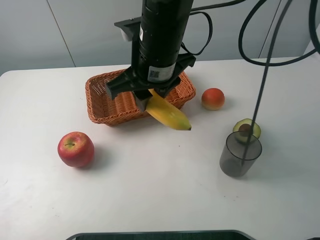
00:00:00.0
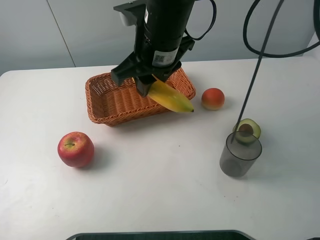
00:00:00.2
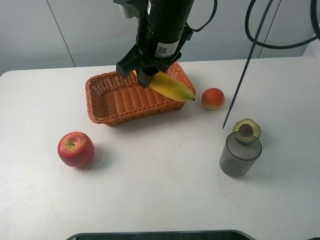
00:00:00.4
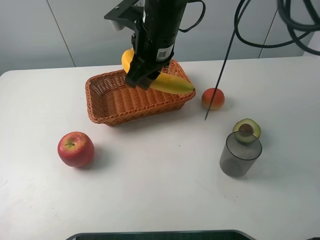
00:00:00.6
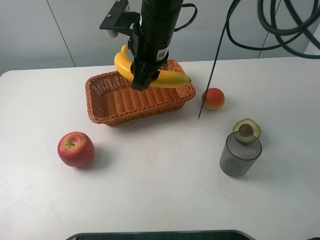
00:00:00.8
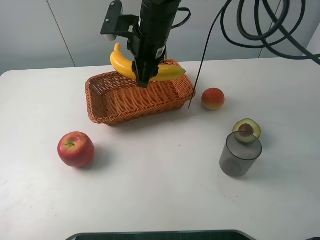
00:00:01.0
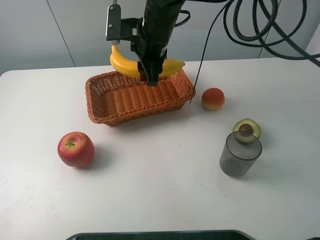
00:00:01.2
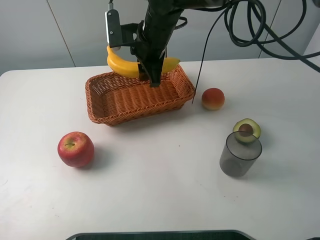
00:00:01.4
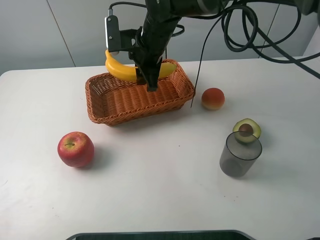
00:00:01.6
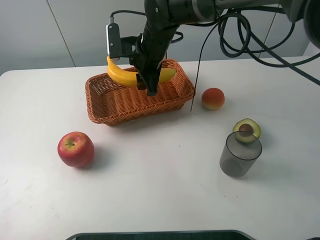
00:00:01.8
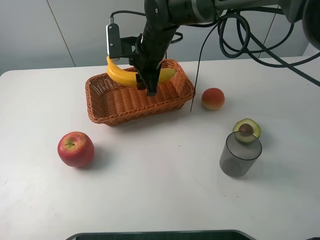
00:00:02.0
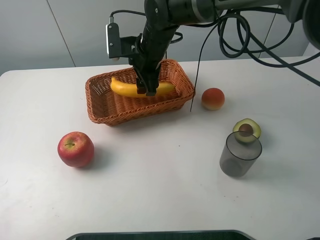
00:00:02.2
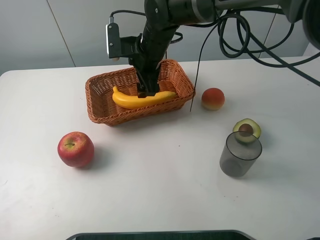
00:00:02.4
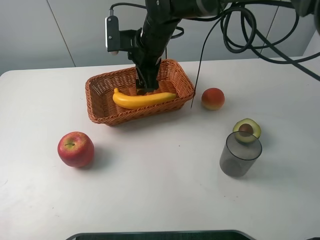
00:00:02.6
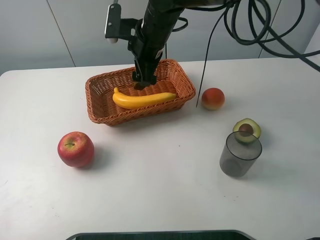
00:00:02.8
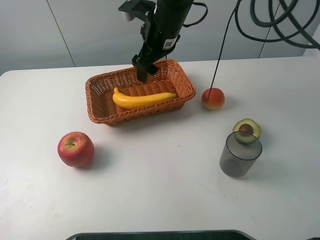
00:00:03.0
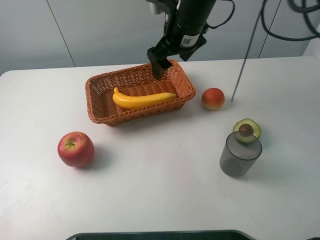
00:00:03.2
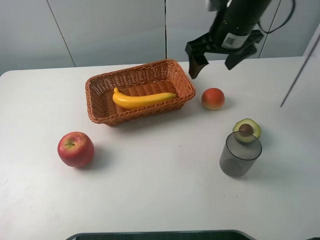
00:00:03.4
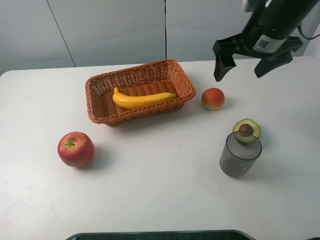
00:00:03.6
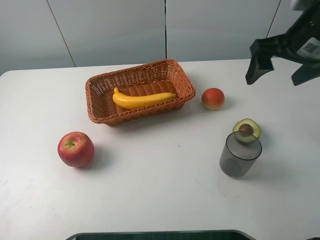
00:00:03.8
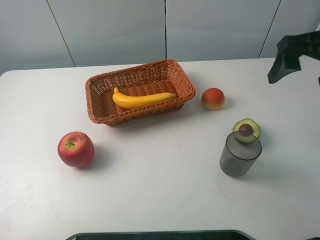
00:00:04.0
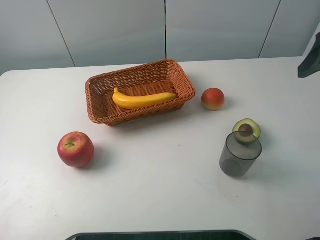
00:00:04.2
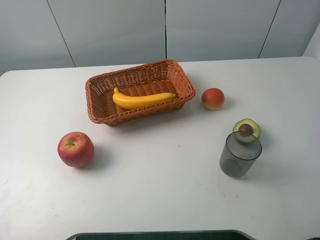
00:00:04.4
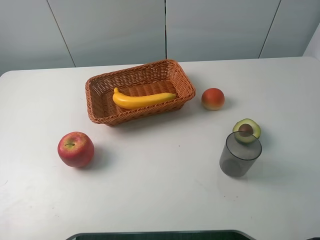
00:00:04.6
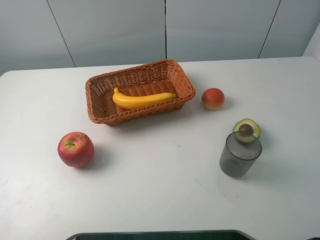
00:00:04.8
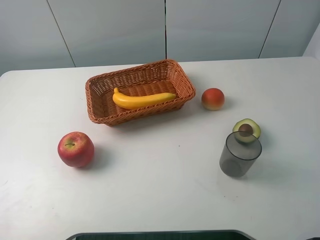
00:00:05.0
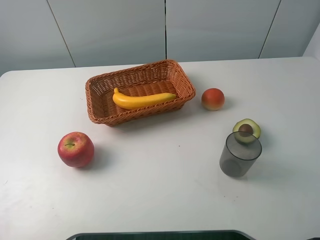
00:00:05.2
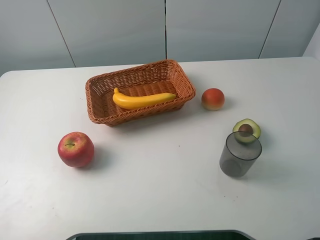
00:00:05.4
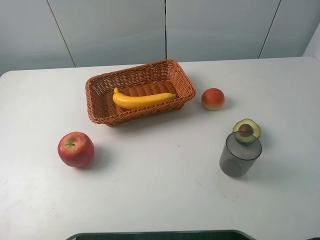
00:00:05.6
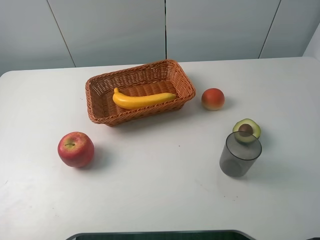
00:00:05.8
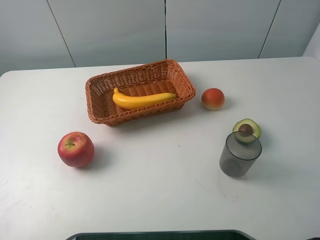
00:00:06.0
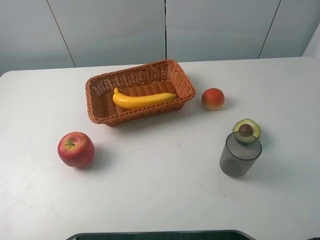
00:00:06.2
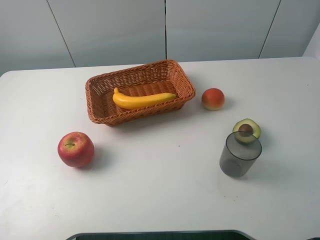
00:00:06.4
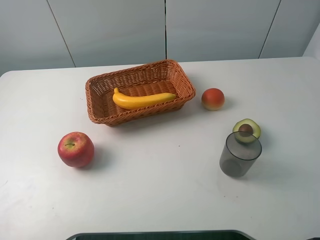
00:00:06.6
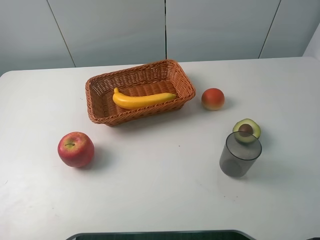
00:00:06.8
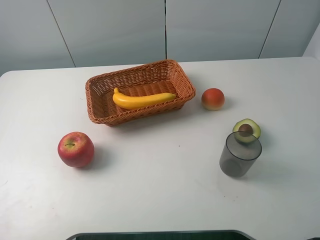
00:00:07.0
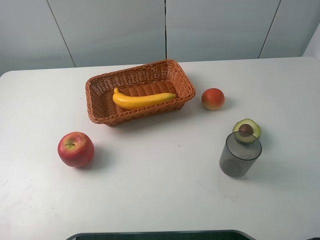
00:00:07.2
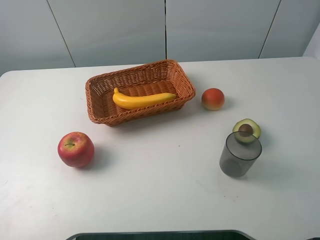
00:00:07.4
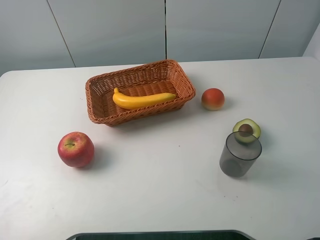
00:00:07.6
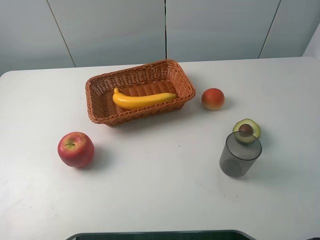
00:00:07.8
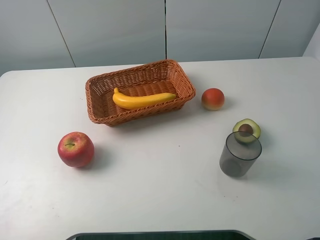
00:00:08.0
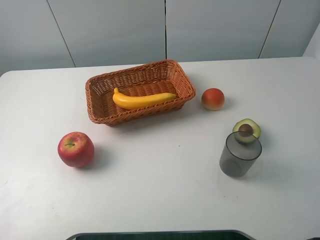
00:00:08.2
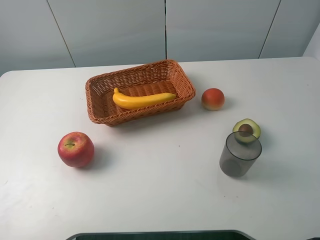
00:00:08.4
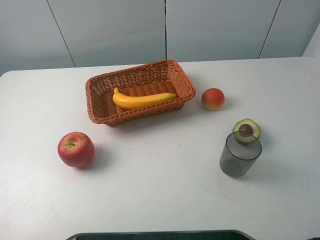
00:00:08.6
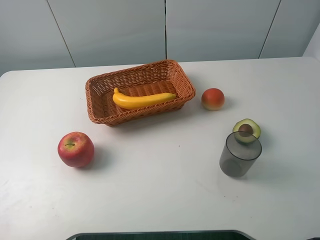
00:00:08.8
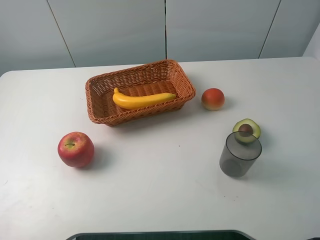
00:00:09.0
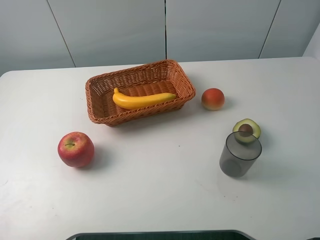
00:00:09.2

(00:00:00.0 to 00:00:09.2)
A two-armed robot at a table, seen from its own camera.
Task of the whole recording: randomly pick up an item from the table and put it in the basket.
Step, 00:00:00.0 - 00:00:02.8: Place the banana into the basket with the right gripper.
00:00:00.0 - 00:00:01.6: The right gripper heads forward, covering about 15 cm.
00:00:01.6 - 00:00:03.0: The right gripper opens its fingers.
00:00:03.0 - 00:00:04.6: The right gripper goes some 35 cm to the right and backward.
00:00:06.2 - 00:00:09.2: Both grippers stay about where they are.

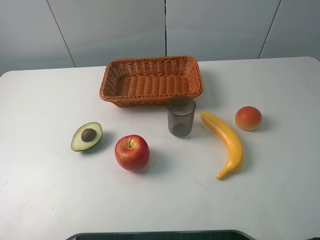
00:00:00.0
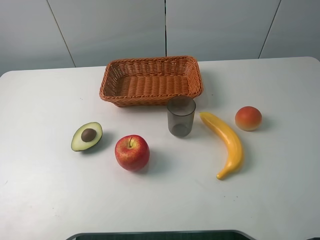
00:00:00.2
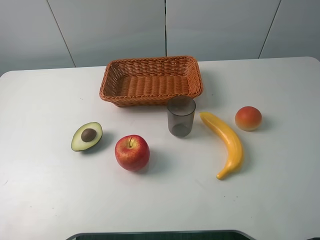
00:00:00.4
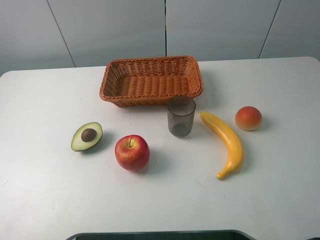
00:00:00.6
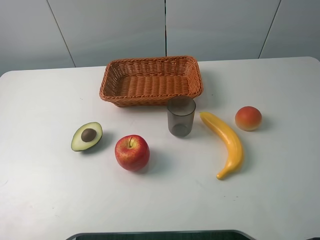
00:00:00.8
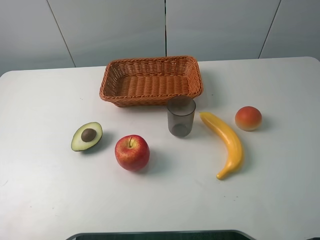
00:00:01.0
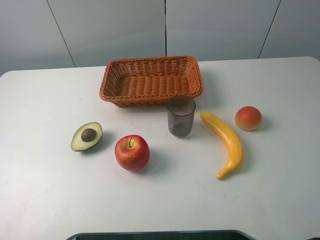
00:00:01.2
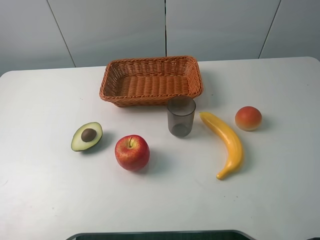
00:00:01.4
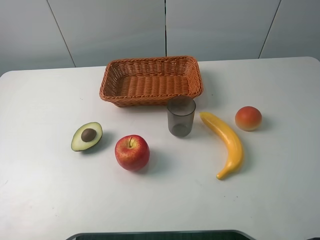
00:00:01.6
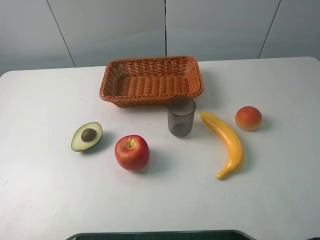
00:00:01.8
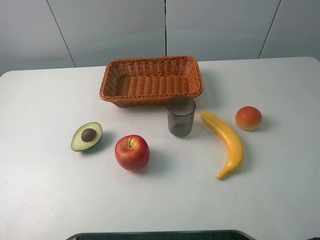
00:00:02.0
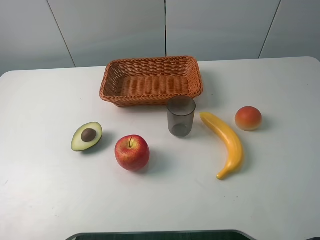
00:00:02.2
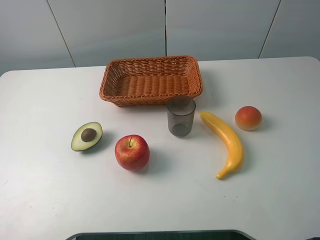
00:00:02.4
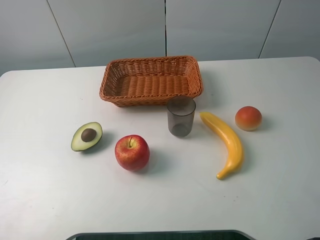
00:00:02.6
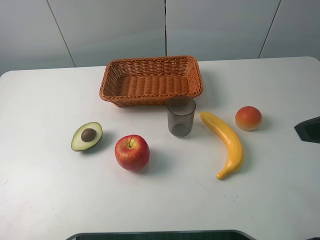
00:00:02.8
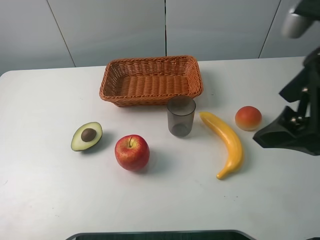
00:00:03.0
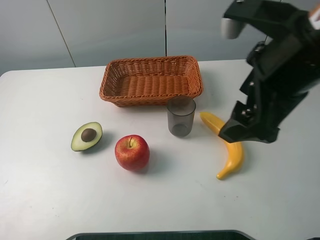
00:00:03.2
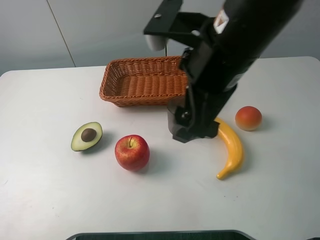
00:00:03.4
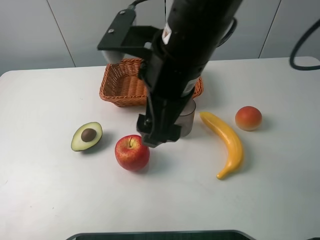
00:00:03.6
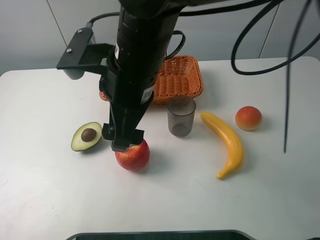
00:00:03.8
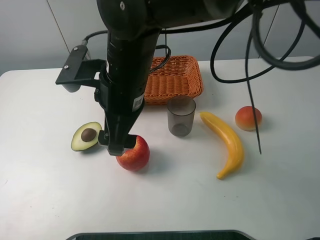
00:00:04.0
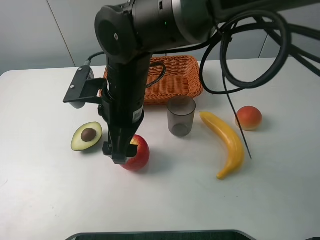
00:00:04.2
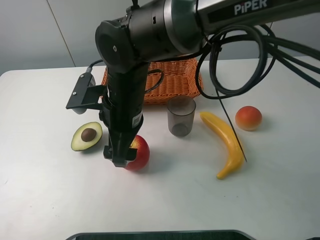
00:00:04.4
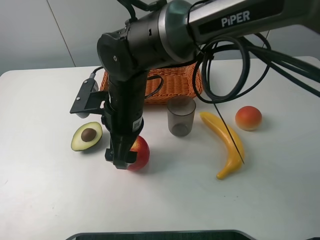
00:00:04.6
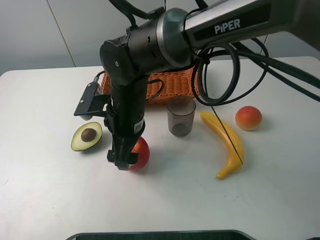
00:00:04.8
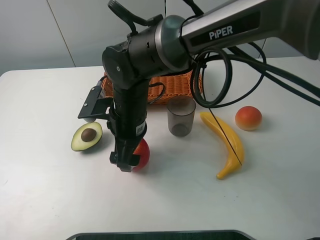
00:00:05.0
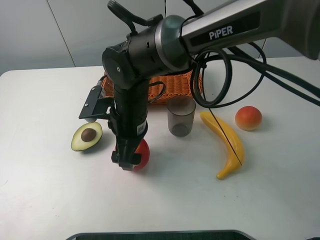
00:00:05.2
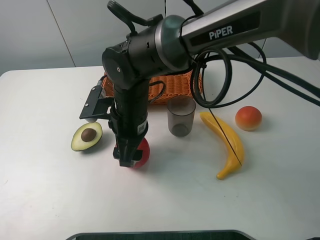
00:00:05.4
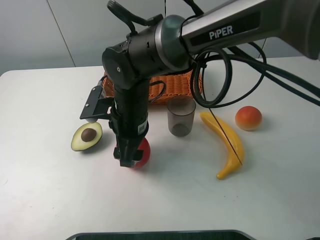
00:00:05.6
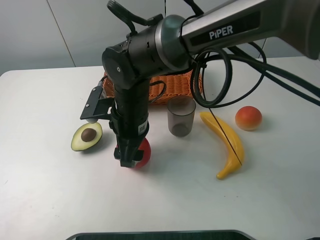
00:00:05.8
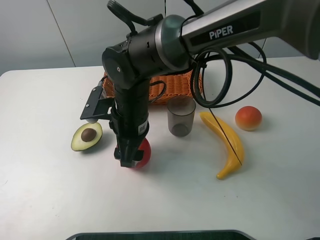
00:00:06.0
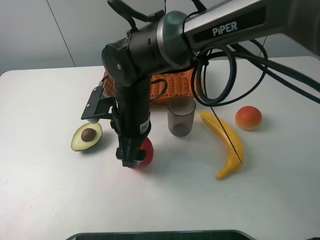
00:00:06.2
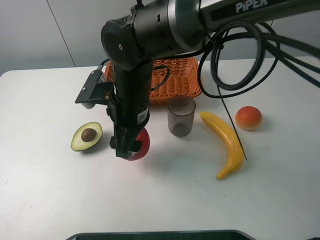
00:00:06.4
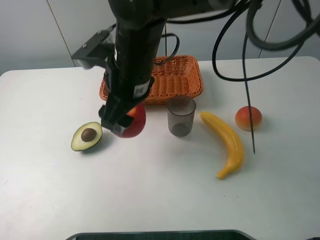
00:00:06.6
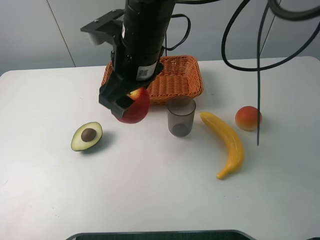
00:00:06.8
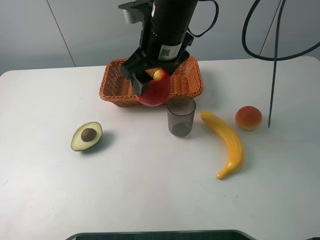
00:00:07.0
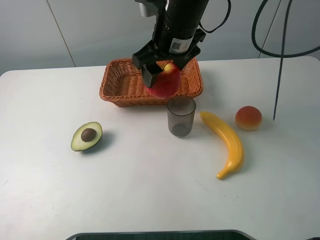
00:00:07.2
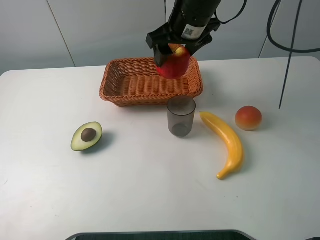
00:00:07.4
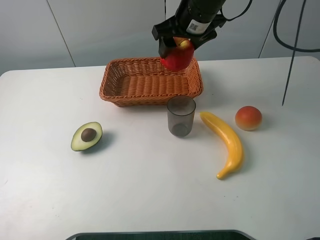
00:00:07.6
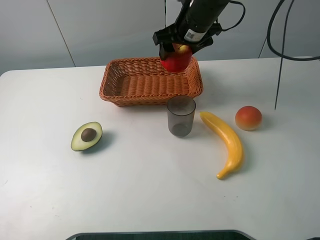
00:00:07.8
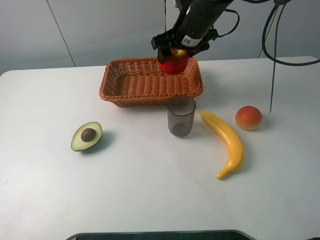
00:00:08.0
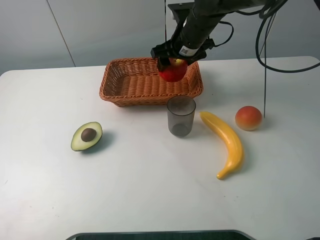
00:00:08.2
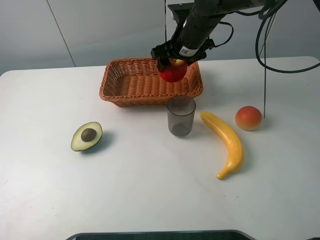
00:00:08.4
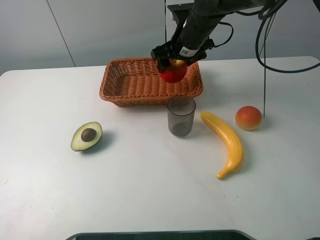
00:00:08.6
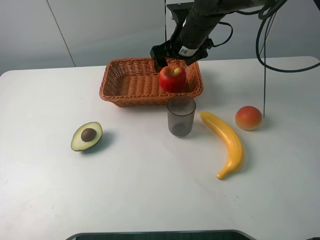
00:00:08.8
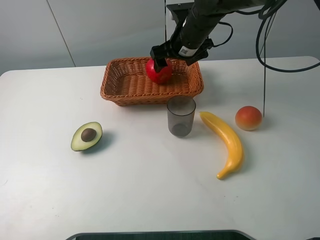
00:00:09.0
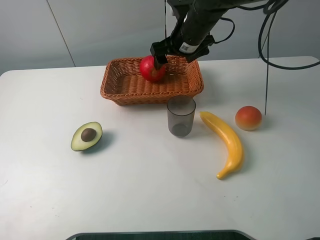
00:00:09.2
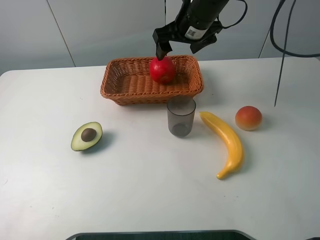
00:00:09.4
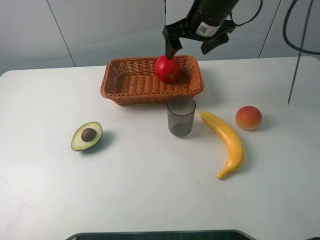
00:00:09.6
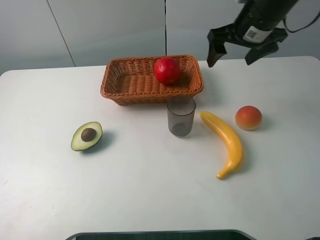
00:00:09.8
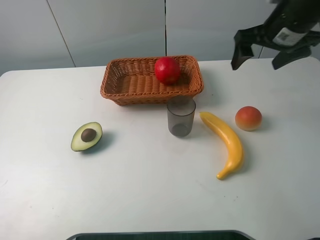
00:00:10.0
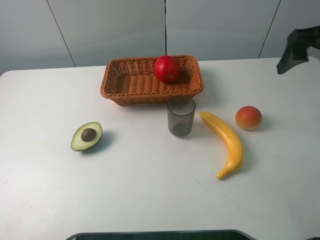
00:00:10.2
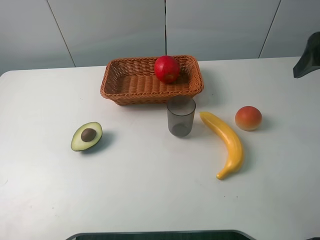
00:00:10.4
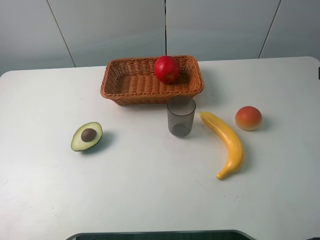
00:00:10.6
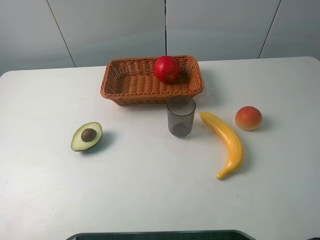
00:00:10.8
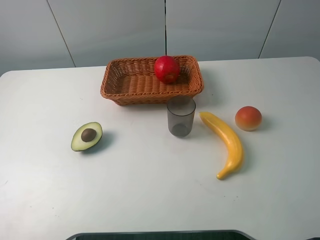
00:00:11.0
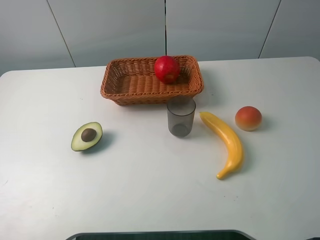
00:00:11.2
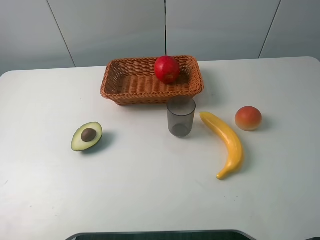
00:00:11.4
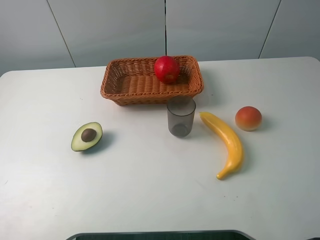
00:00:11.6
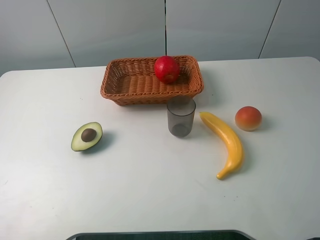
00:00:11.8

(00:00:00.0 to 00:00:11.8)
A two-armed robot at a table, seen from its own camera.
Task of the whole recording: randomly pick up an item from the table and put it in the basket.
Step, 00:00:00.0 - 00:00:05.2: Grasp the apple with the right gripper.
Step, 00:00:05.4 - 00:00:09.4: Place the apple into the basket with the right gripper.
00:00:00.0 - 00:00:01.4: Both grippers stay about where they are.
00:00:01.4 - 00:00:03.0: The right gripper heads forward and to the left, covering some 20 cm.
00:00:03.0 - 00:00:04.4: The right gripper goes approximately 30 cm to the left and downward.
00:00:04.4 - 00:00:06.0: The right gripper closes.
00:00:06.0 - 00:00:07.4: The right gripper shifts approximately 20 cm upward, forward and to the right.
00:00:07.4 - 00:00:08.8: The right gripper goes approximately 5 cm downward, and opens up.
00:00:08.8 - 00:00:10.4: The right gripper heads to the right, backward and upward, covering roughly 30 cm.
00:00:10.4 - 00:00:11.8: The right gripper moves backward, roughly 20 cm.

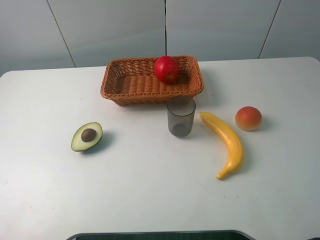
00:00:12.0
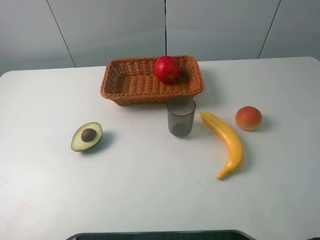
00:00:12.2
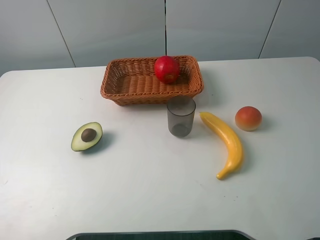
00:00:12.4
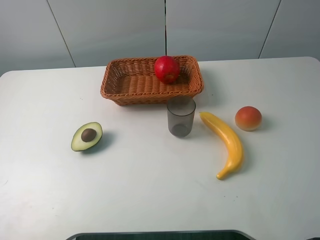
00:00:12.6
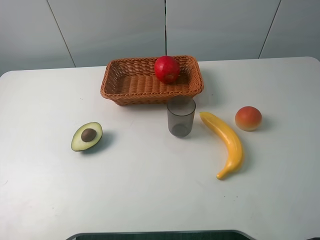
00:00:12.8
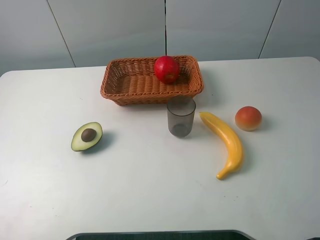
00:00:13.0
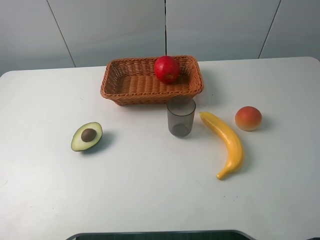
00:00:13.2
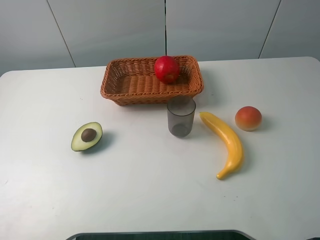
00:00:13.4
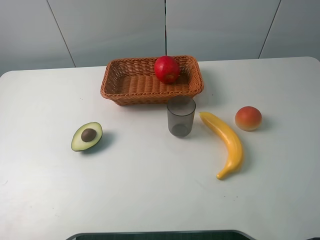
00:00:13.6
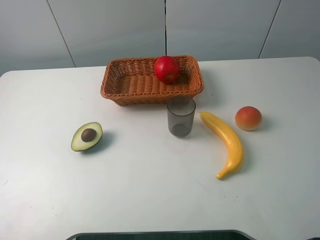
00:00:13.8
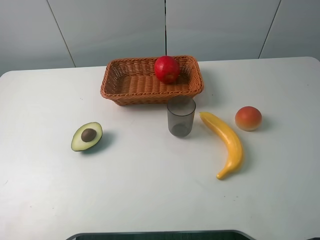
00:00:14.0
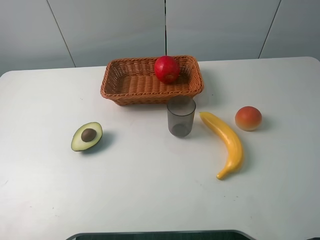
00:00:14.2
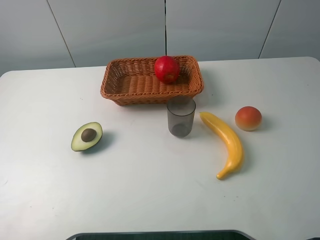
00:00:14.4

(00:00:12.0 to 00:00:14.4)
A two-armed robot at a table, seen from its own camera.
Task of the whole recording: randomly pick up an item from the table and put it in the basket.
00:00:12.0 - 00:00:14.4: Both grippers stay put.
